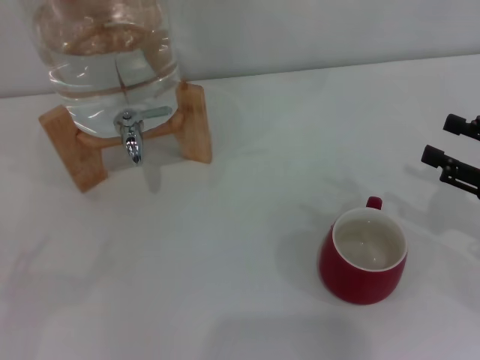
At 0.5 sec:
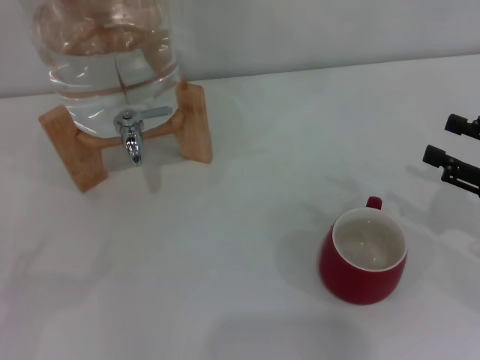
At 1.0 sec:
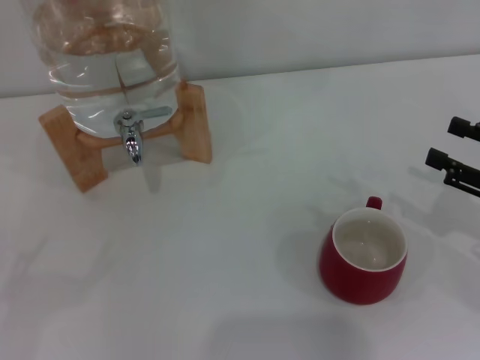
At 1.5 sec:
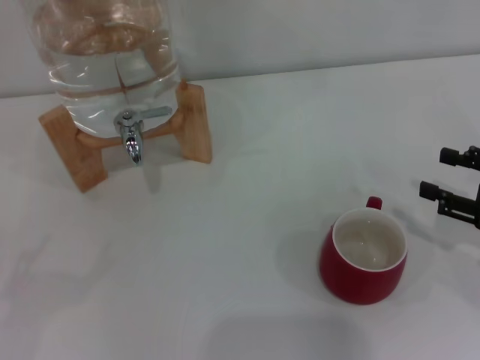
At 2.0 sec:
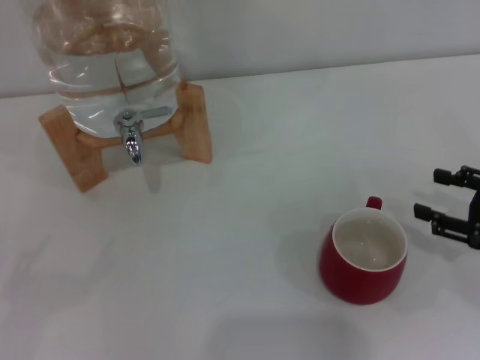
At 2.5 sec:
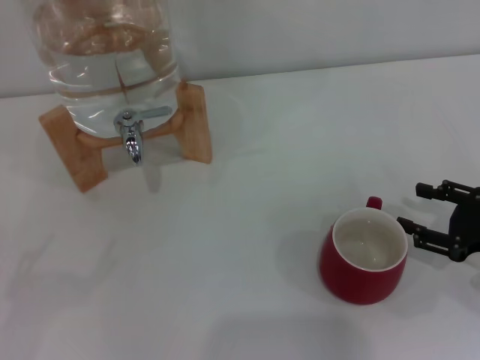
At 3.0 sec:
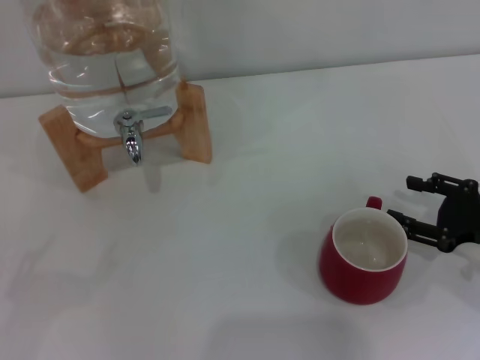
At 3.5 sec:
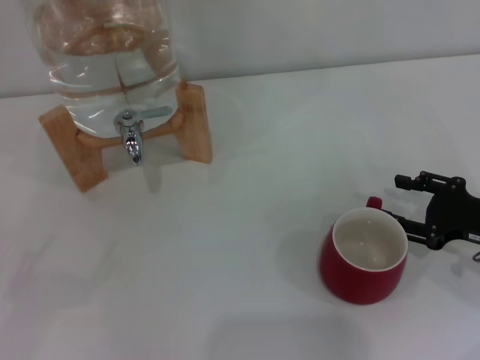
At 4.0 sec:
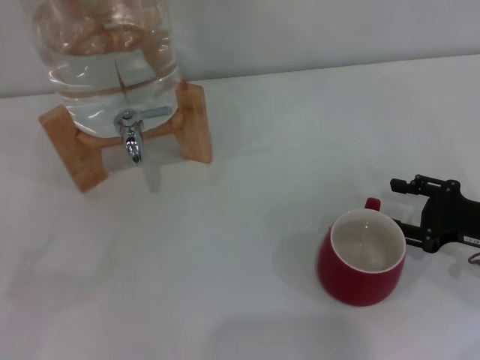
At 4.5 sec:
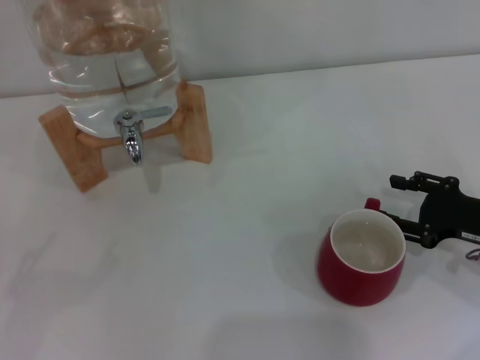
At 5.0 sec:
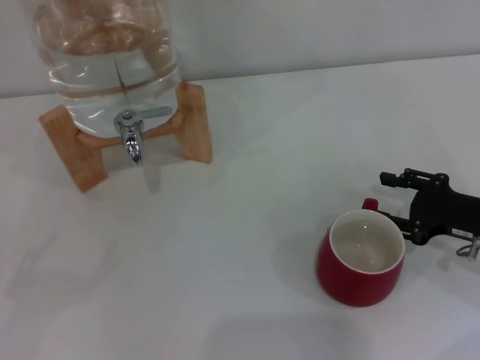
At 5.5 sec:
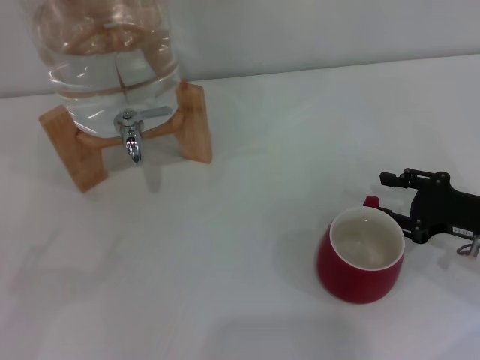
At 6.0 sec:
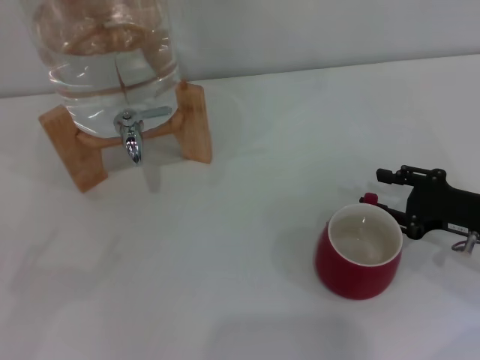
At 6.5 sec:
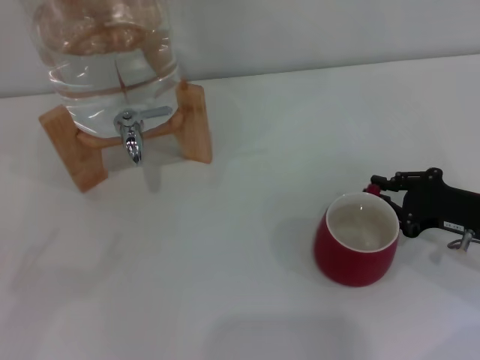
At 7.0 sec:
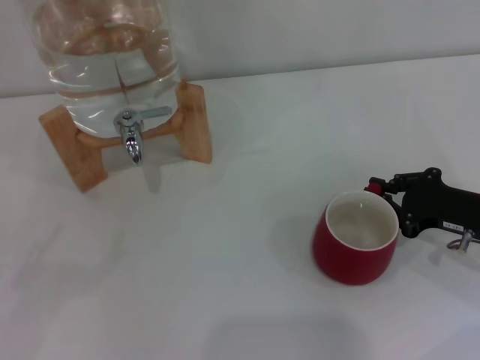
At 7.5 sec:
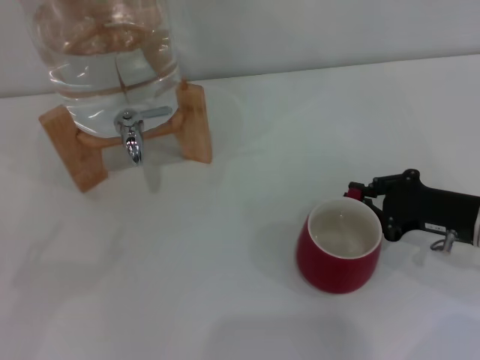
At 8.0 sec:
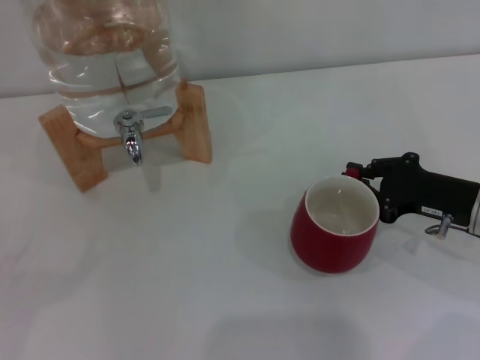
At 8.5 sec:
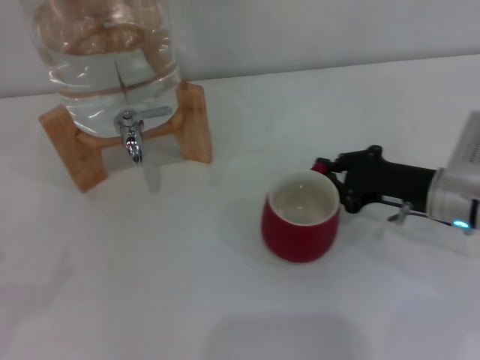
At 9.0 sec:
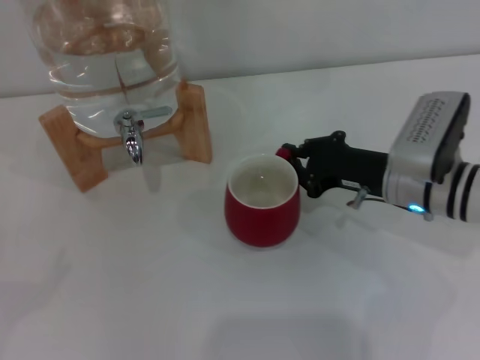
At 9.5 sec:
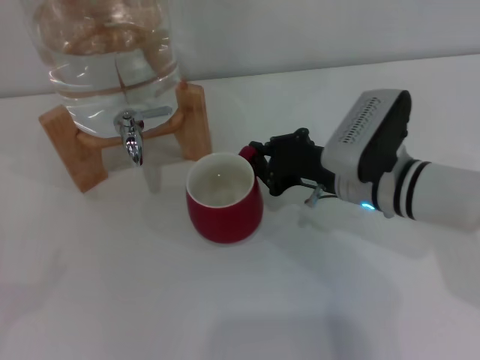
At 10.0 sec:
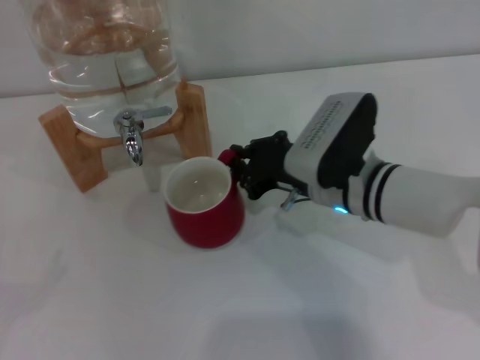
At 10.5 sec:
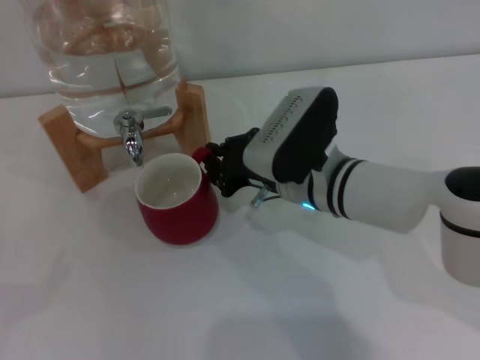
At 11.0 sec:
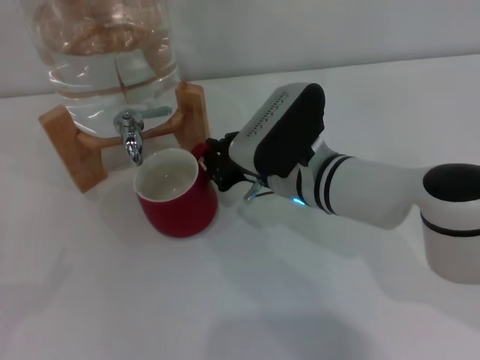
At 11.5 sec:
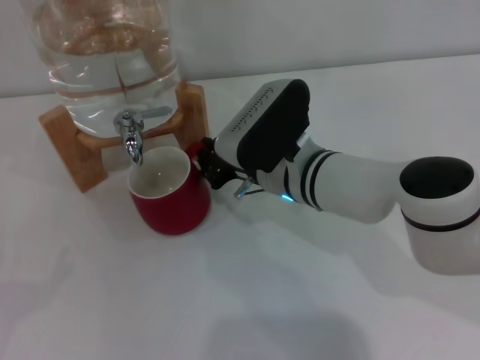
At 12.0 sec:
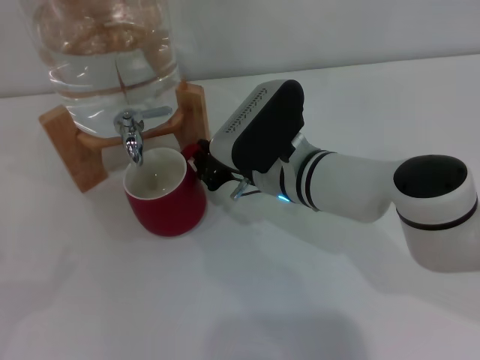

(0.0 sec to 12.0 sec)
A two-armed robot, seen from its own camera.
Task of the whole recording: the right gripper pick up the red cup and place it horizontally under the faucet, the left gripper turn on the faucet to fill the cup, and then turn off the faucet.
0.0 sec - 2.0 sec: The grippers move only a little.
2.0 sec - 4.0 sec: The grippers move only a little.
4.0 sec - 6.0 sec: The grippers move only a little.
6.0 sec - 8.0 sec: The right gripper closes.
8.0 sec - 10.0 sec: The right gripper travels to the left by approximately 15 cm.
10.0 sec - 12.0 sec: The right gripper is displaced to the left by about 5 cm.

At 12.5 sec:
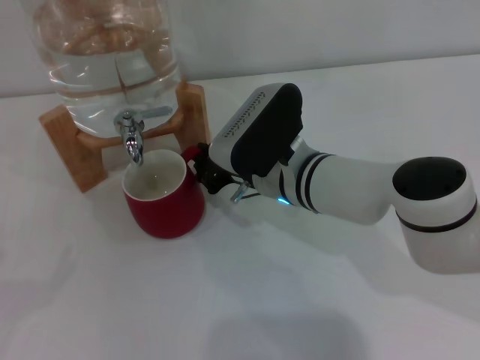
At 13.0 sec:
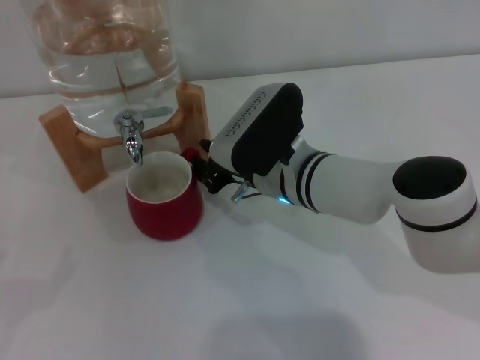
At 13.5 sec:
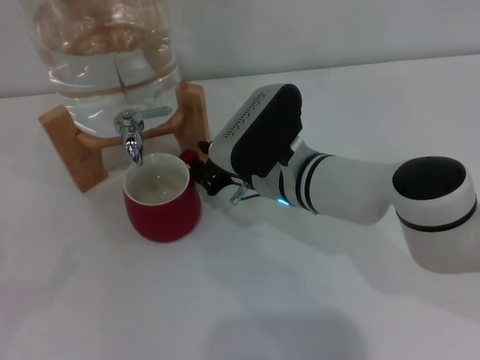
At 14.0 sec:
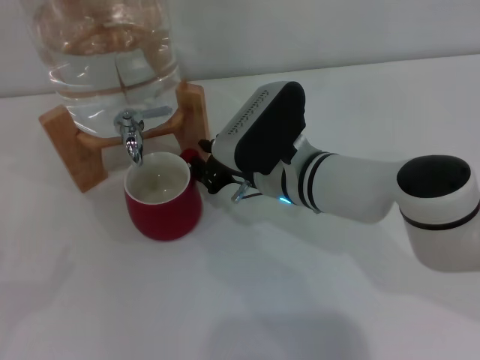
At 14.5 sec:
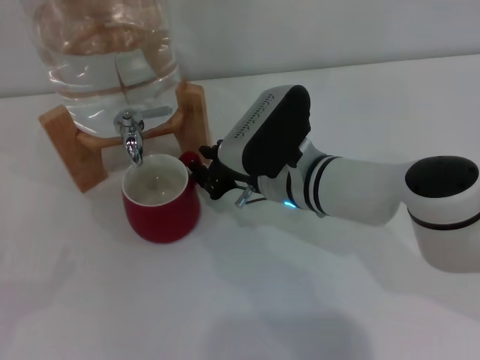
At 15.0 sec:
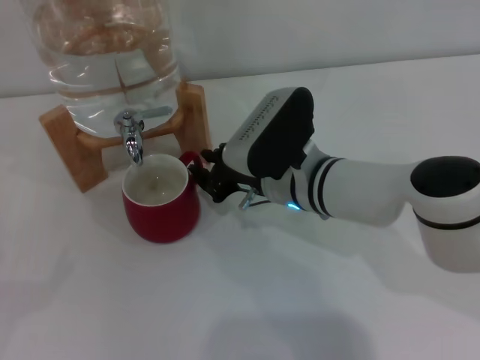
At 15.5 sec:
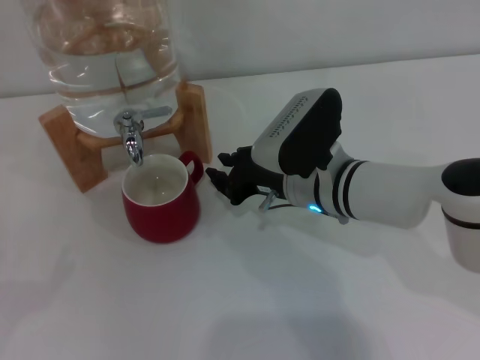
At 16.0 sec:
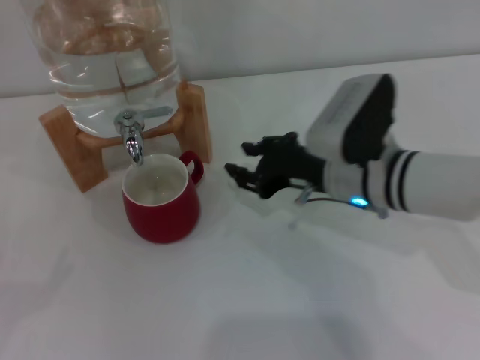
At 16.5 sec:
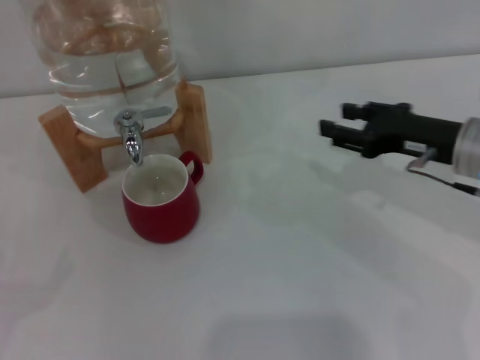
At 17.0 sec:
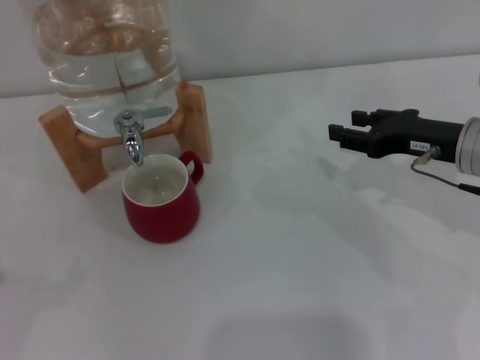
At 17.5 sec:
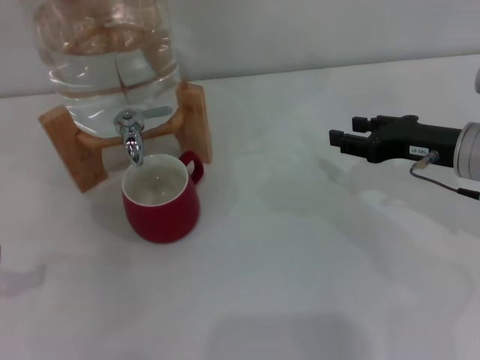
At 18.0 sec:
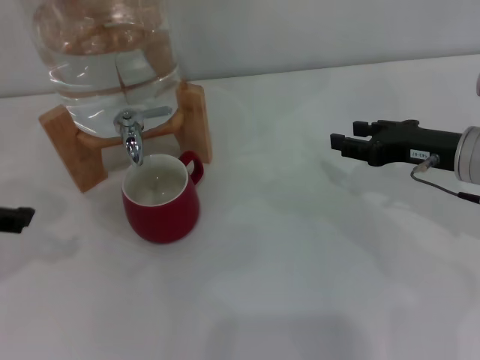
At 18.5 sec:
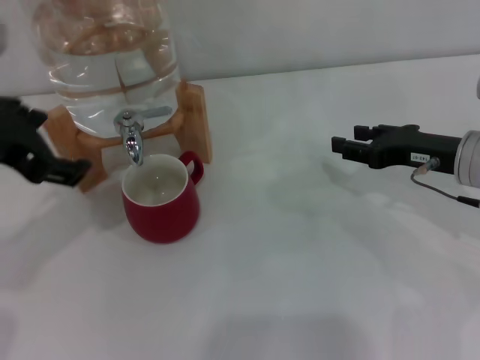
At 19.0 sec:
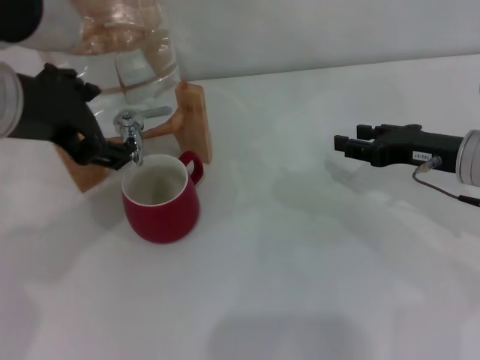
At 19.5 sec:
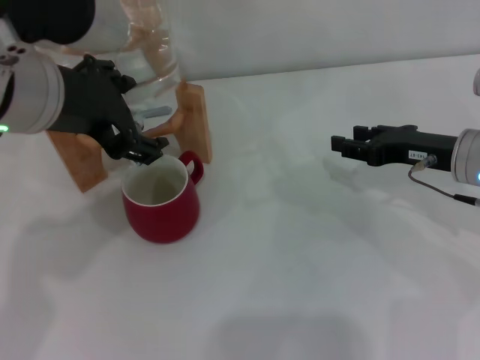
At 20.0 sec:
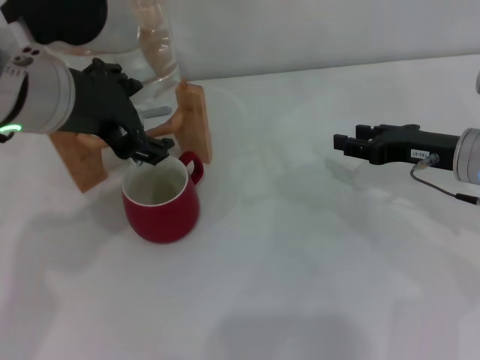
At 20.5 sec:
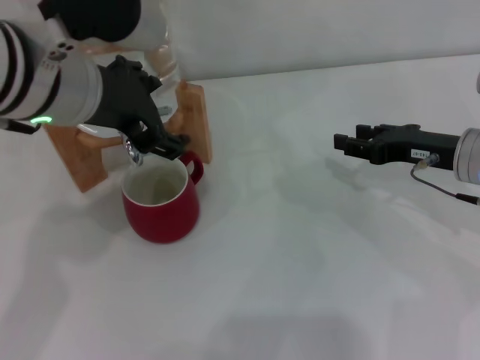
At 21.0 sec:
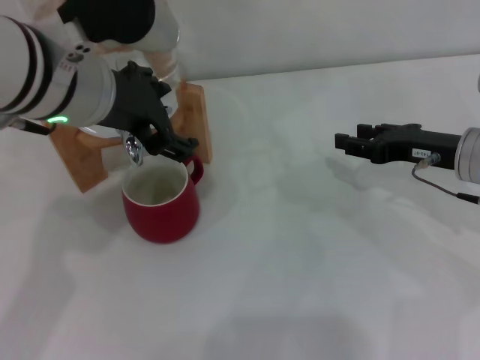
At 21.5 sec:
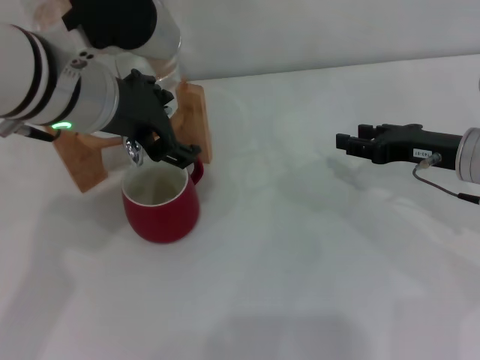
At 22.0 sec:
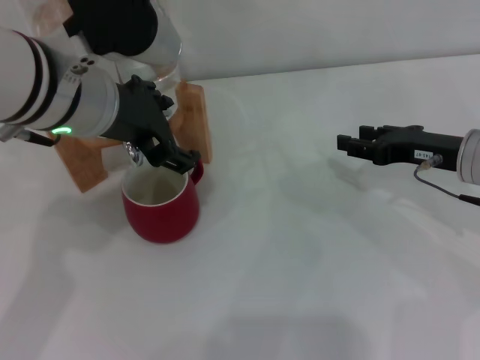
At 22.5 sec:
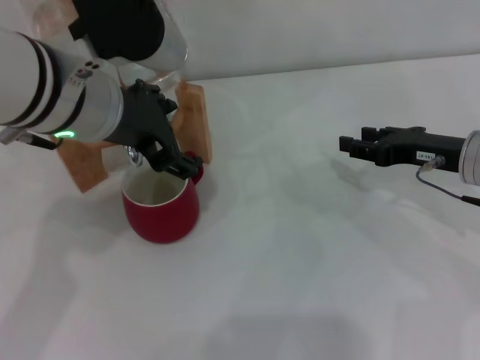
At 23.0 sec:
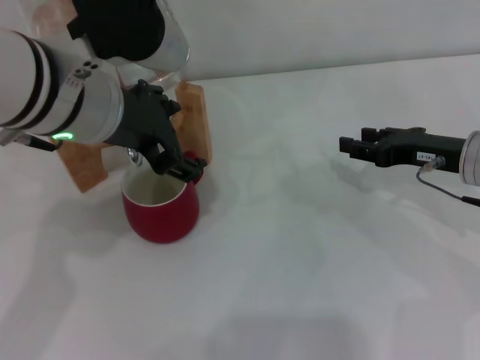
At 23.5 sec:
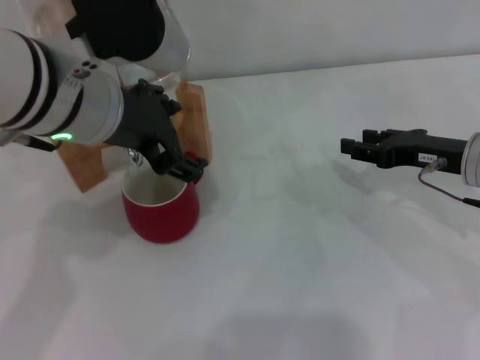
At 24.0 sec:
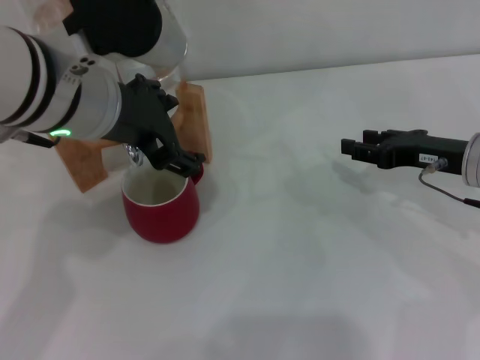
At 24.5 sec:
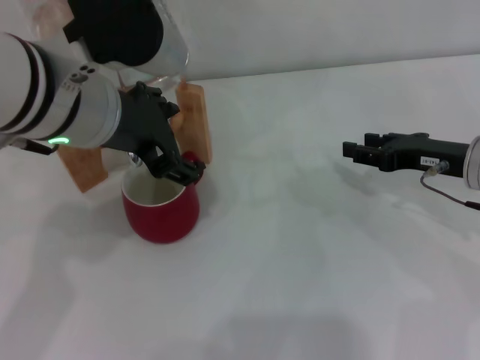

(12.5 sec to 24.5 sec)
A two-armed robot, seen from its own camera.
Task of the whole recording: the right gripper pick up the red cup and place it horizontally under the faucet, the left gripper turn on the faucet to fill the cup, and then turn off the faucet.
Step, 12.5 sec - 15.5 sec: Move the cup beneath the water dispenser nozzle with the right gripper.
12.5 sec - 14.5 sec: The two grippers keep their place.
14.5 sec - 16.5 sec: The right gripper travels to the right by approximately 20 cm, and opens.
16.5 sec - 18.5 sec: The left gripper shifts some 30 cm to the right, upward and forward.
18.5 sec - 20.5 sec: The left gripper moves to the right, approximately 10 cm.
20.5 sec - 24.5 sec: The grippers stay close to where they were, moving slightly.

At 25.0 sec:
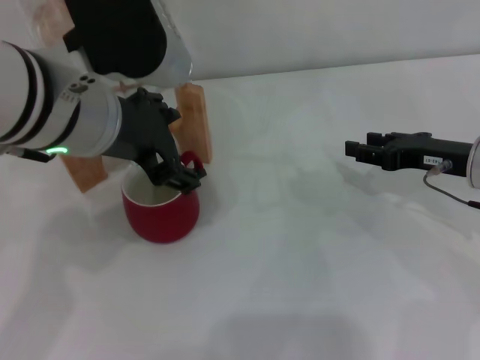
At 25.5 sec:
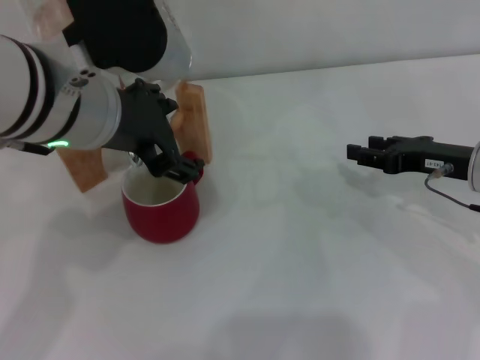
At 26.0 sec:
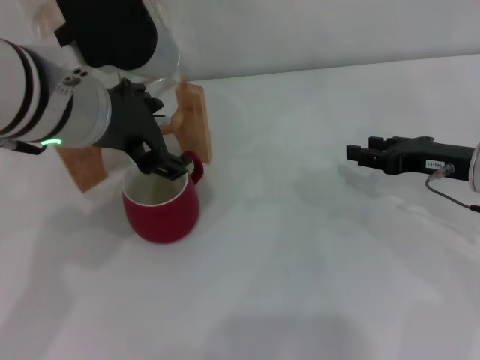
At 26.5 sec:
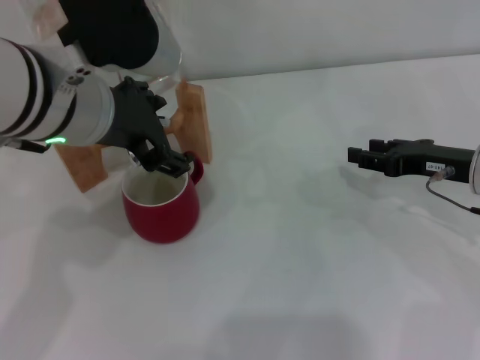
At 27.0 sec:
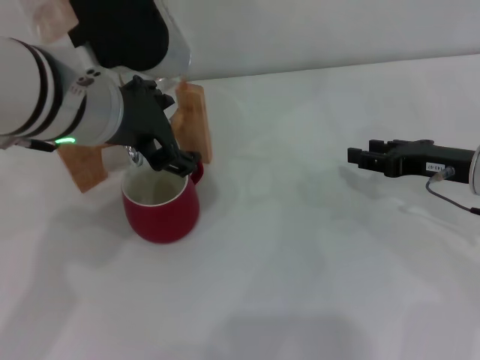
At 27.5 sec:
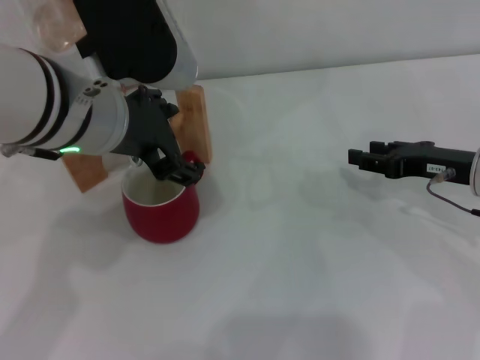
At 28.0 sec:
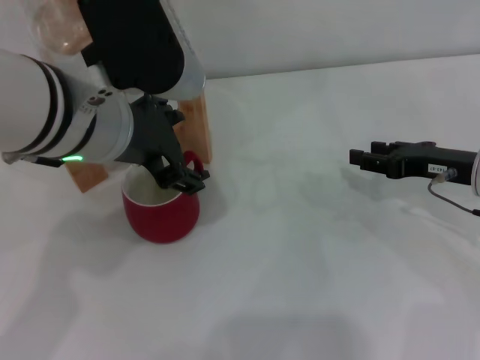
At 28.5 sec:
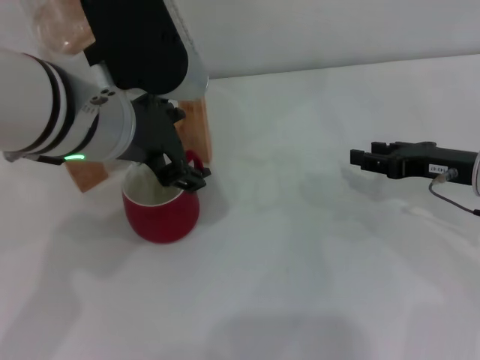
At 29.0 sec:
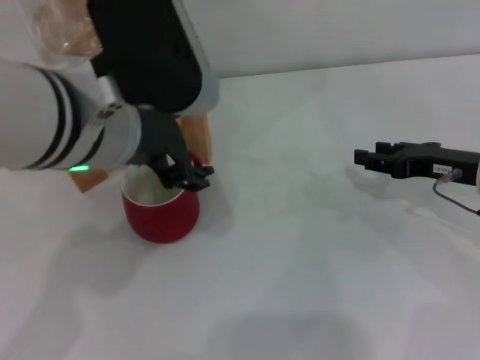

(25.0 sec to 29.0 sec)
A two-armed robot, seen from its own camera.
Task of the whole recording: the right gripper pick up the red cup and place it horizontally under the faucet, the left gripper turn on the faucet to fill the cup, and then turn off the faucet.
25.0 sec - 29.0 sec: The grippers move only a little.
